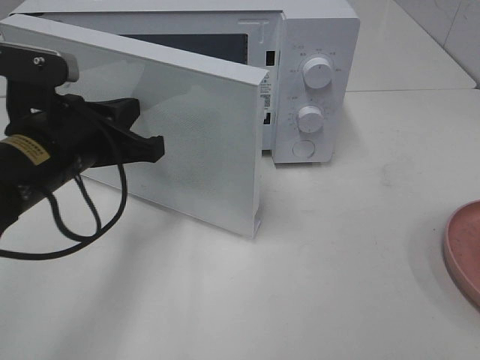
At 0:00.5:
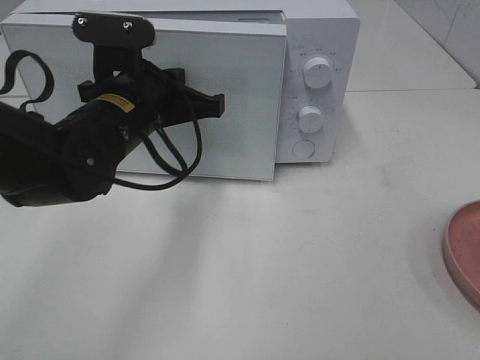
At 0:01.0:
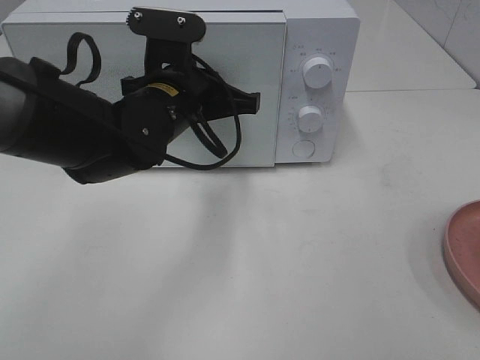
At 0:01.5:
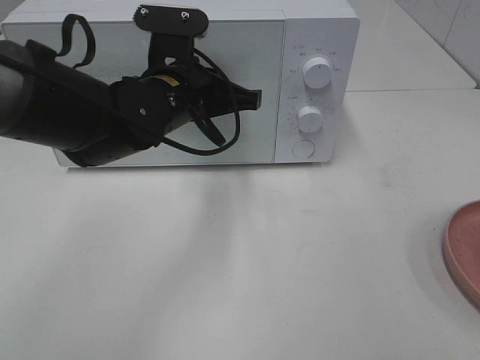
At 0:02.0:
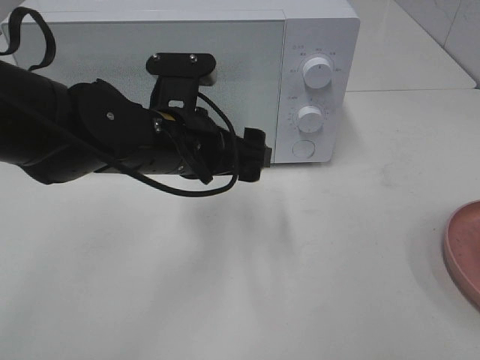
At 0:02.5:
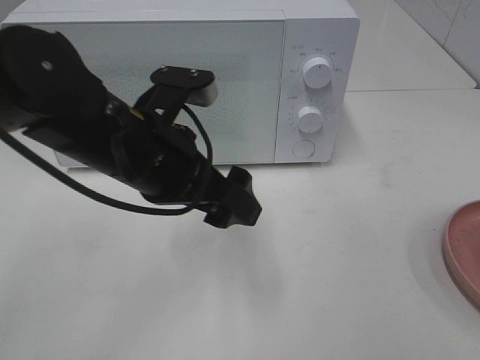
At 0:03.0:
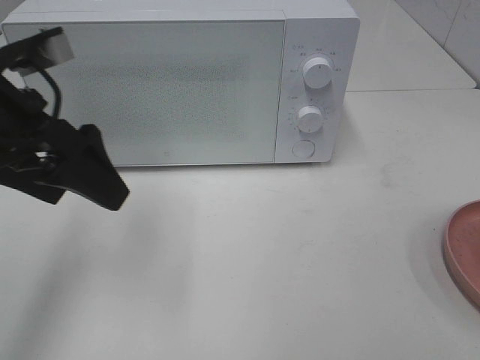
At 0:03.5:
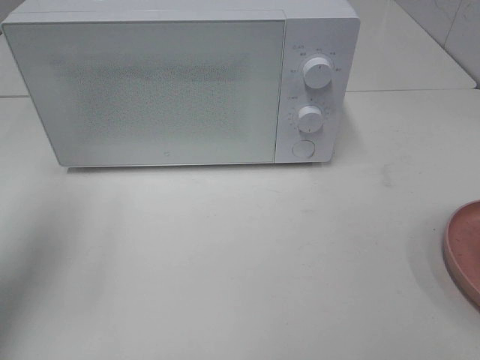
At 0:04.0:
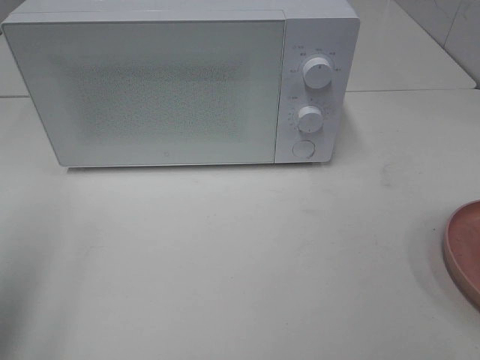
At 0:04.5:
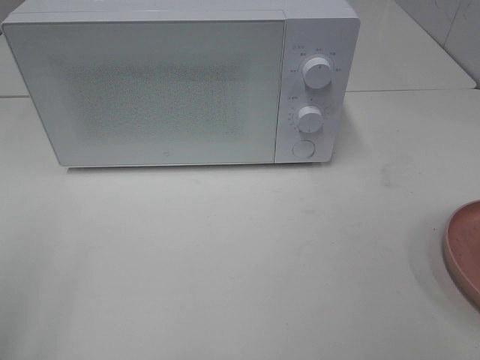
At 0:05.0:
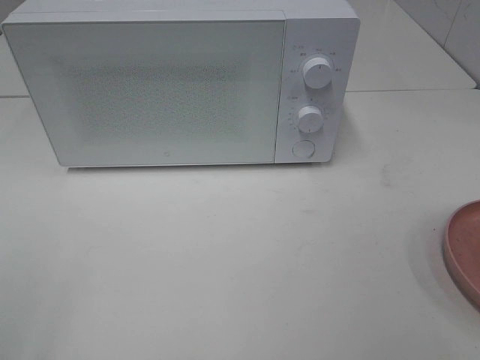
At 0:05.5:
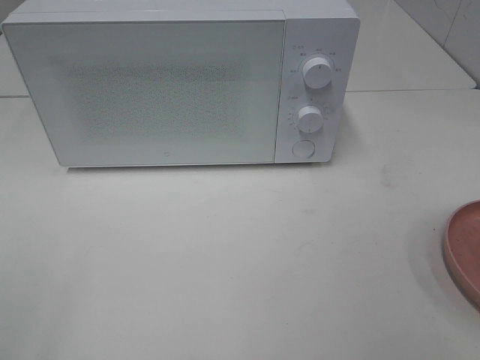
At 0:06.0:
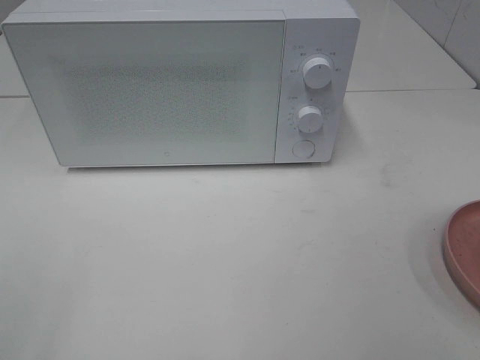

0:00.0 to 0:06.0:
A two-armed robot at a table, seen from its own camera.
Task of the whole recording: Heat the burger.
0:00.0 to 0:02.0: The left gripper goes roughly 10 cm to the right, and opens.
0:02.0 to 0:04.0: The left gripper goes approximately 30 cm to the left, backward and upward.
0:04.0 to 0:06.0: The left gripper shifts approximately 15 cm backward.

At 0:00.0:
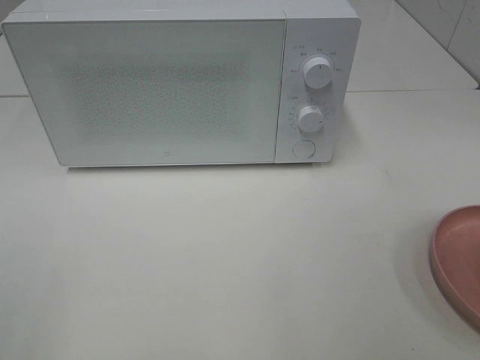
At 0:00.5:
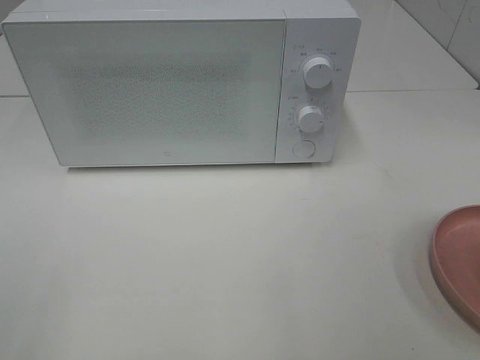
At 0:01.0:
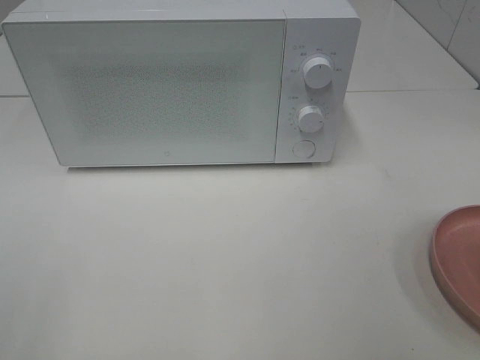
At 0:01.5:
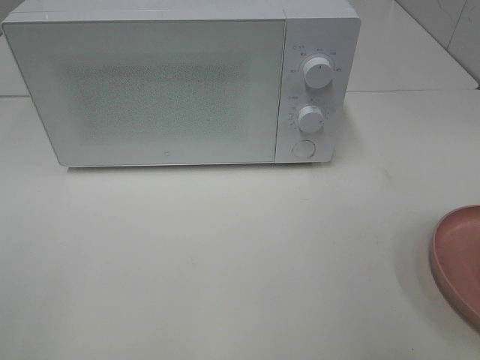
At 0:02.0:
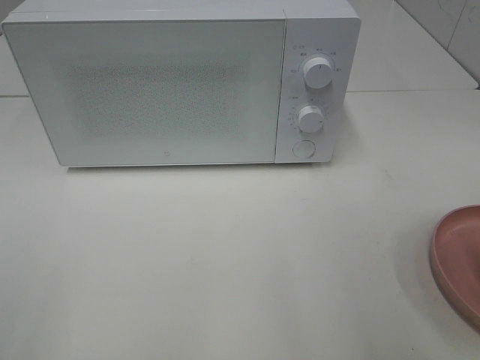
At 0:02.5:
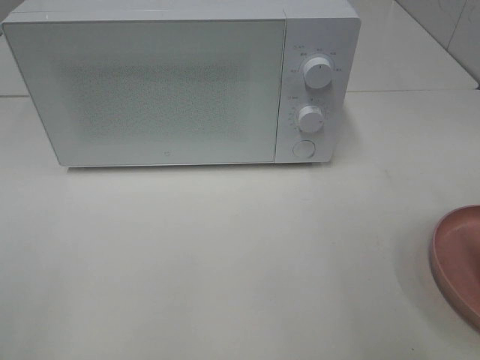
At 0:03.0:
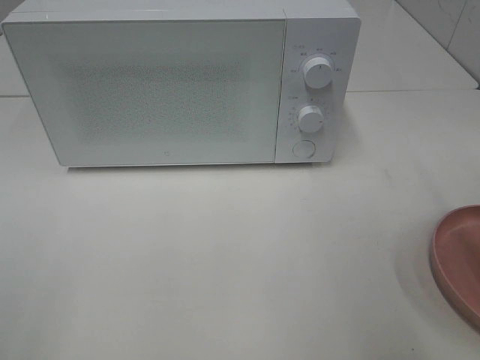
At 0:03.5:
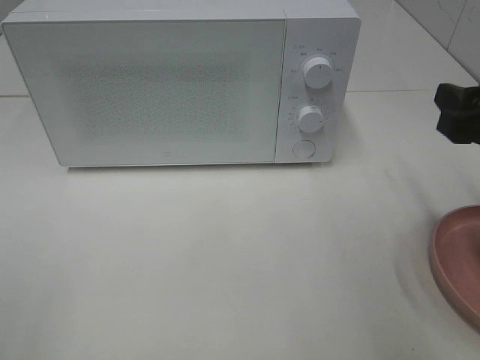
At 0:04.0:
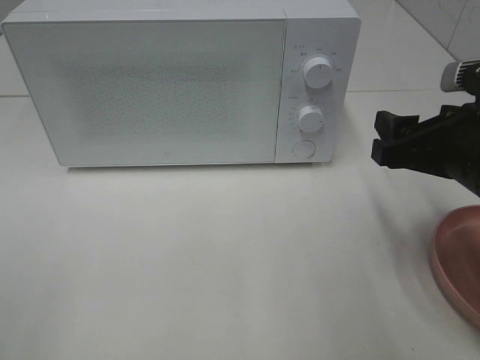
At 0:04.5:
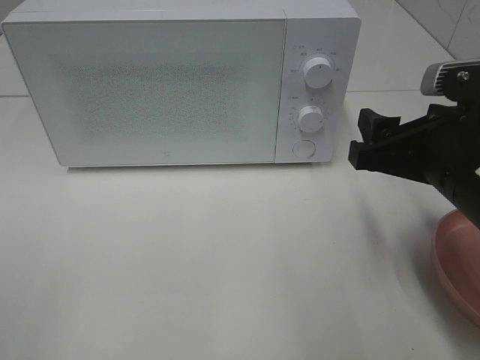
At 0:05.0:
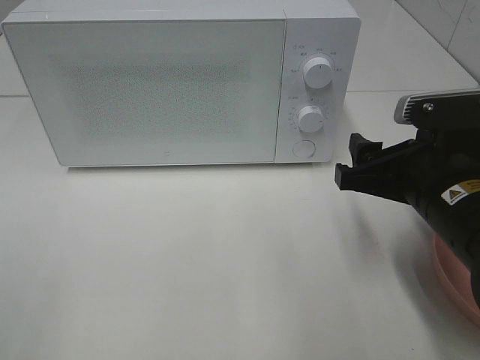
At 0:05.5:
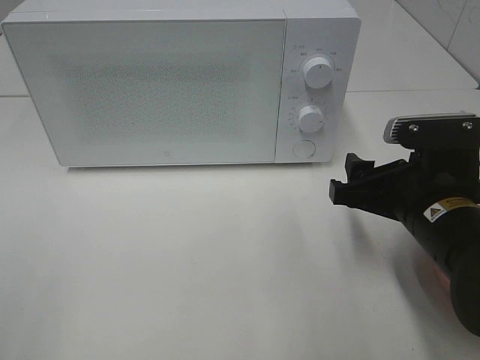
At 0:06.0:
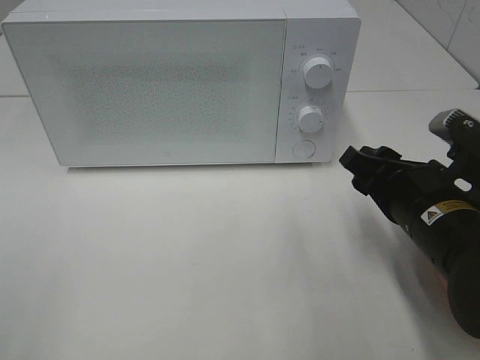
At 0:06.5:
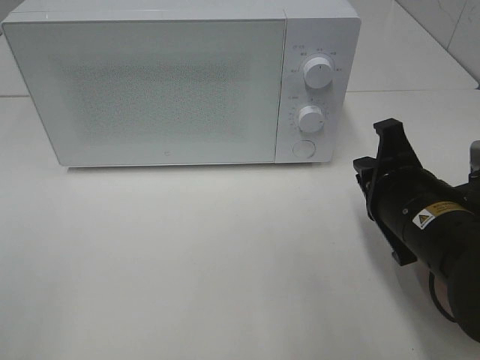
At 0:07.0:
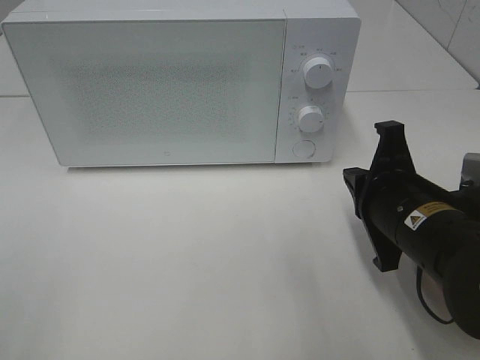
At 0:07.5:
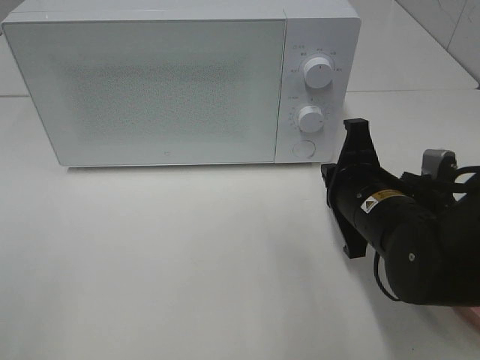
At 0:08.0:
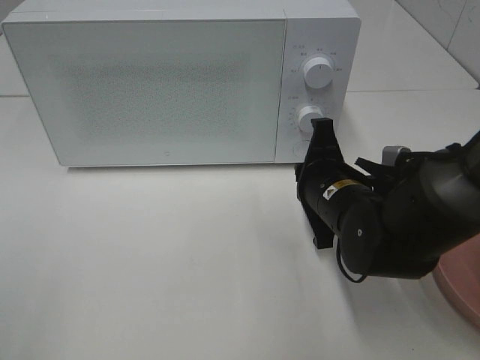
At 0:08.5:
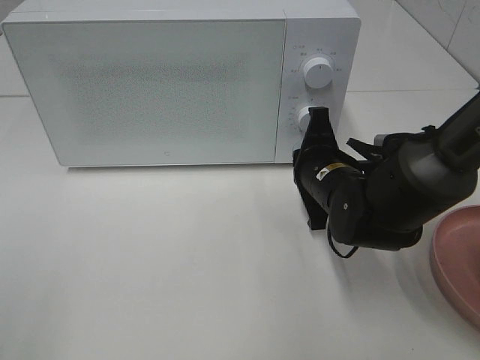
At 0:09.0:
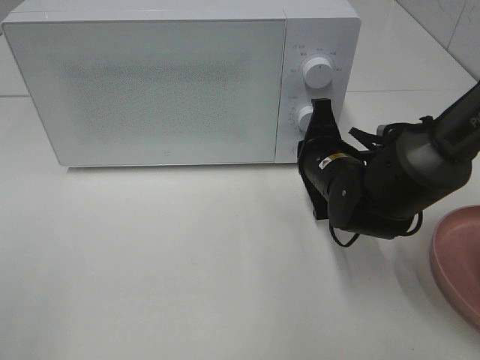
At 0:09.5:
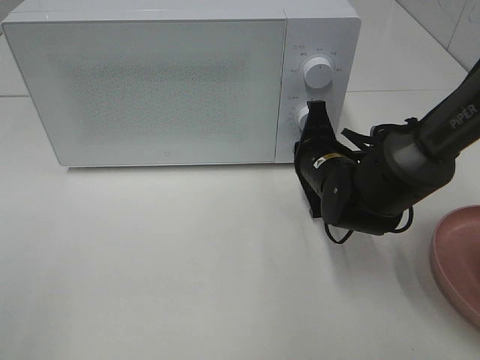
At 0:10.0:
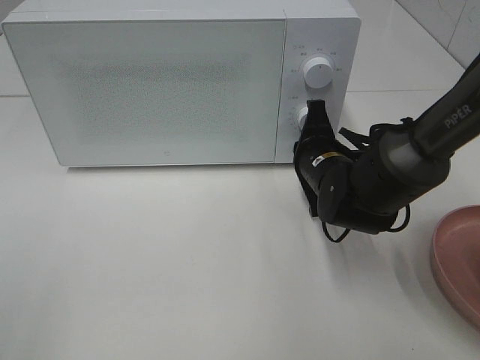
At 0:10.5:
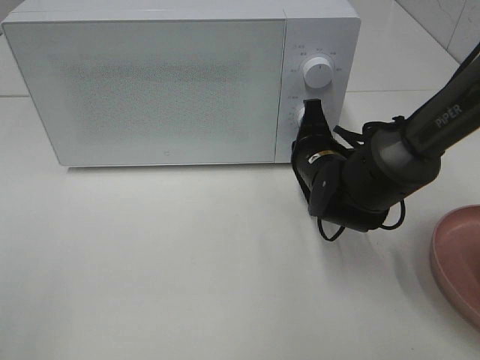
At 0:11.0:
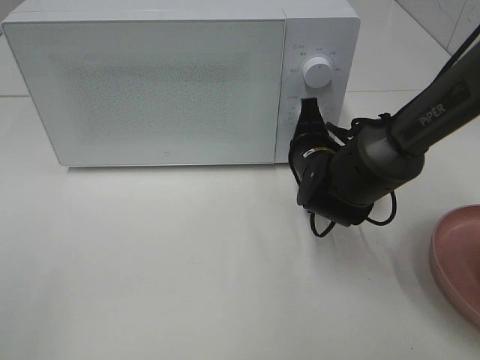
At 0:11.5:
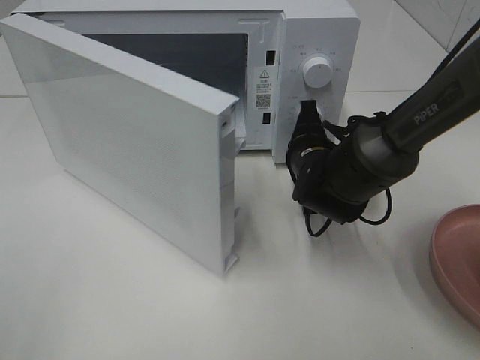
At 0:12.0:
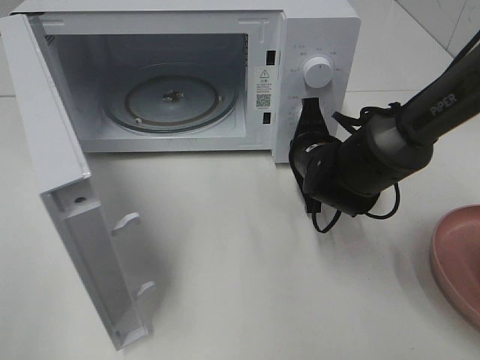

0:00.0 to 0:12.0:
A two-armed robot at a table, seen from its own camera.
Task of the whole recording: Heat the burger.
0:02.0 to 0:04.0: The right gripper goes roughly 15 cm forward, downward and to the left.
0:04.0 to 0:06.0: The right gripper travels downward by some 5 cm.
0:06.0 to 0:08.0: The right gripper is displaced to the left and forward by some 10 cm, and closes its fingers.
0:08.0 to 0:10.0: The right gripper heads forward, covering roughly 5 cm.

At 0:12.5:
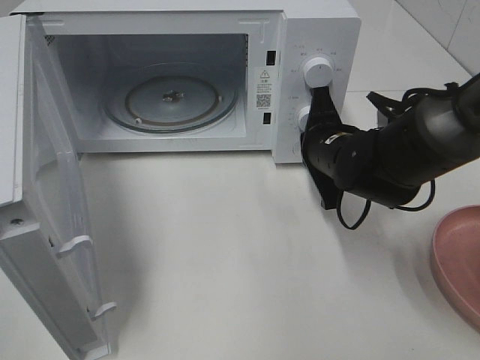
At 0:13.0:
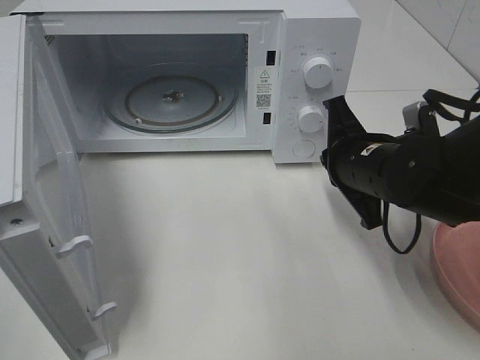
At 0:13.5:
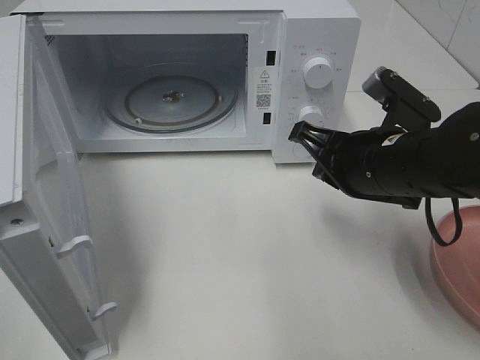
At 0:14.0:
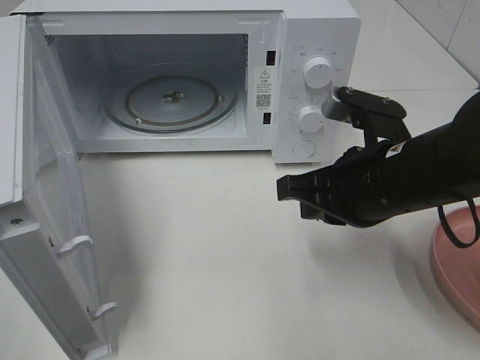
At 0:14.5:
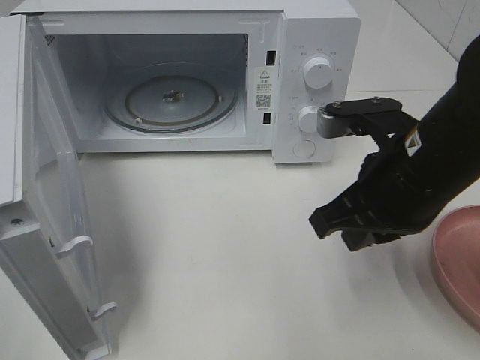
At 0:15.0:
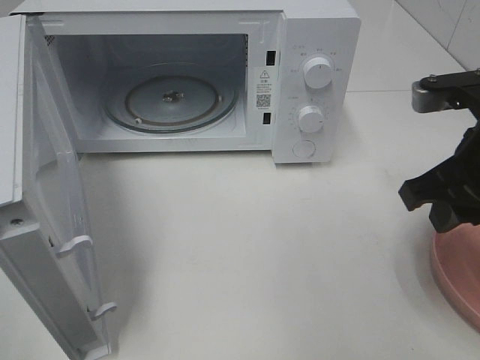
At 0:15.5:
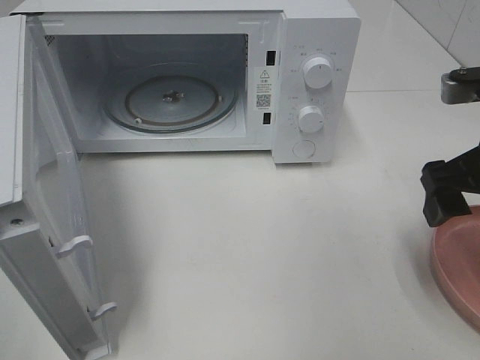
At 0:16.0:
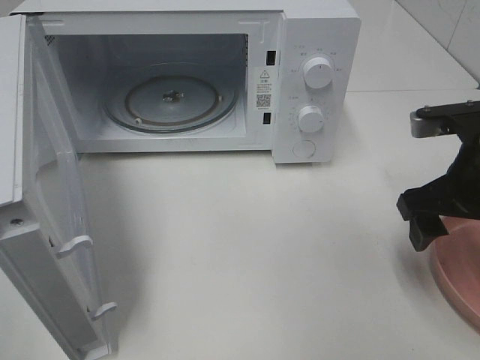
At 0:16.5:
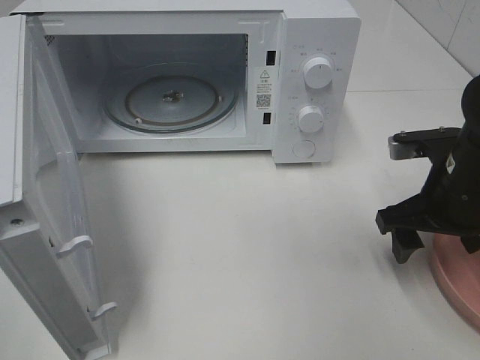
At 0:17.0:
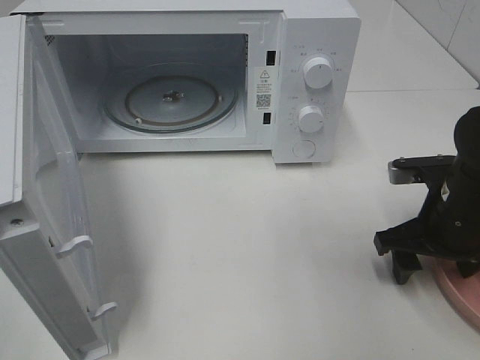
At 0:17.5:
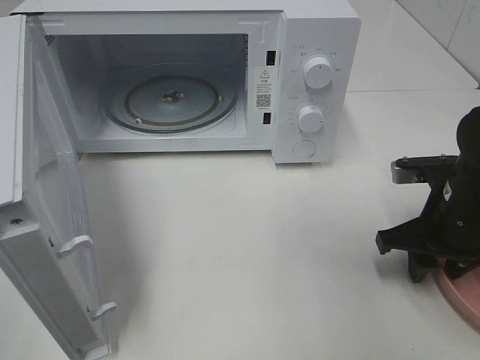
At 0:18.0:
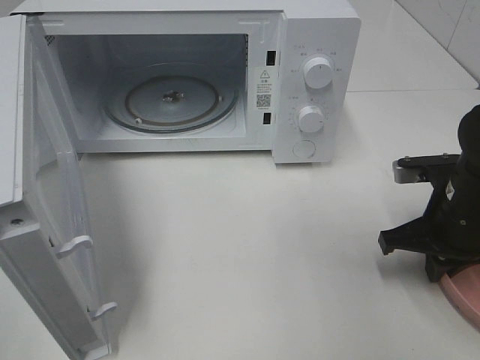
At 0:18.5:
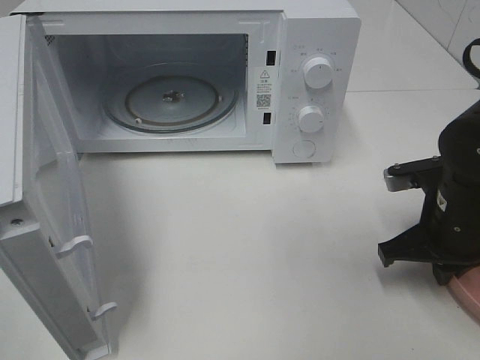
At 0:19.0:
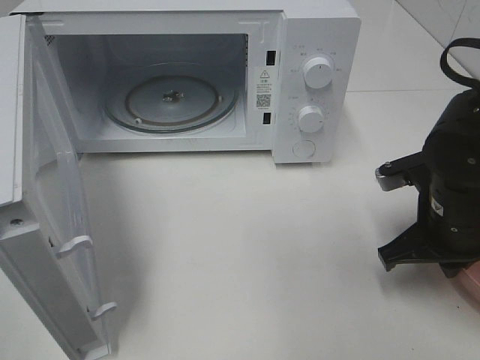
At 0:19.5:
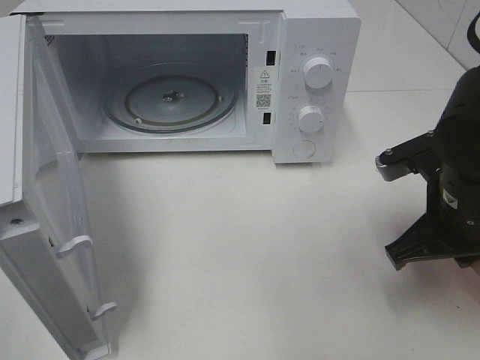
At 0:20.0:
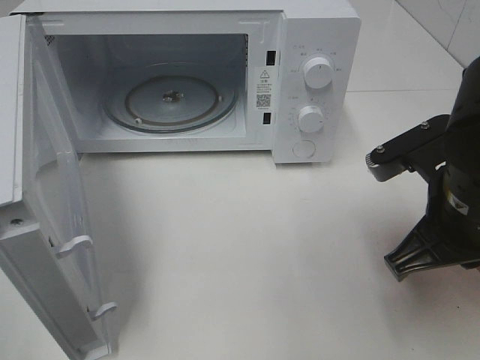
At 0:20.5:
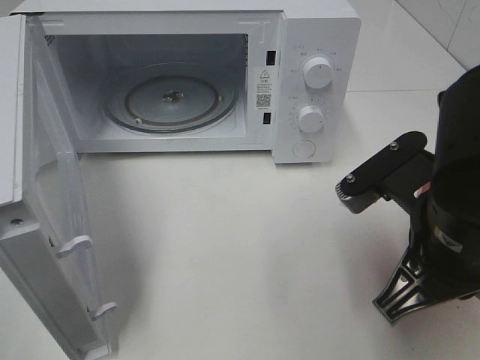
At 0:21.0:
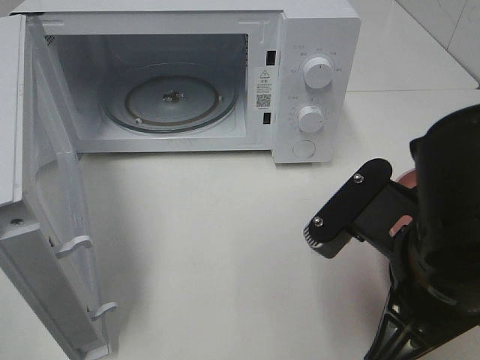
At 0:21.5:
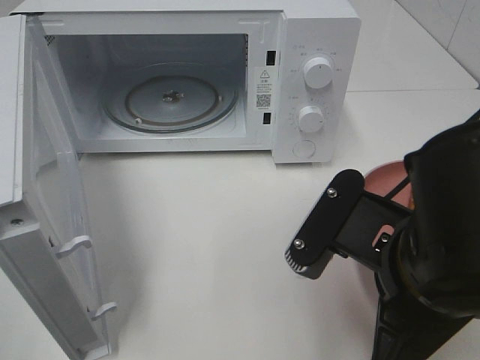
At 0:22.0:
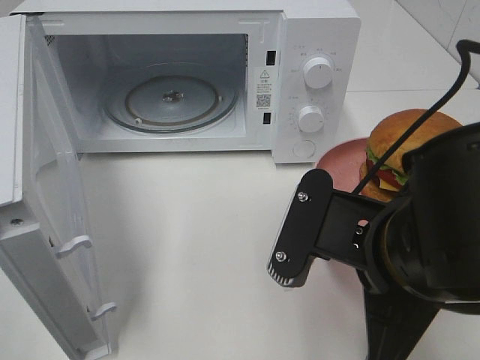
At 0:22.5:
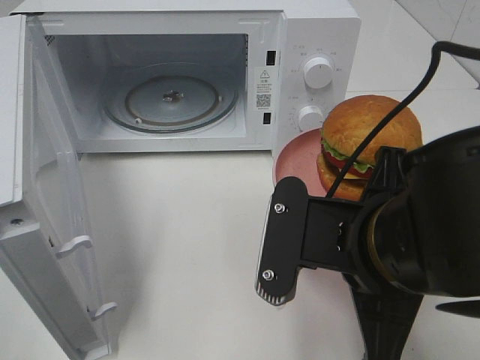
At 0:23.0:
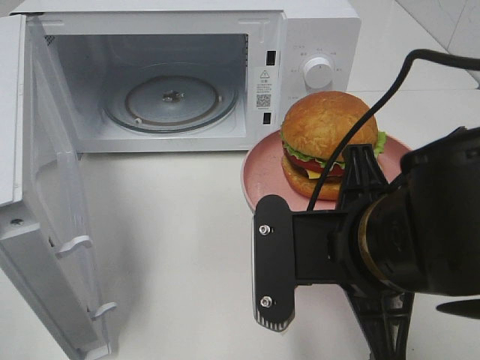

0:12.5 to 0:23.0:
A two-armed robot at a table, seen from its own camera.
Task of the whole recording: Heat the burger.
Step, 0:13.0 to 0:18.0: Right hand: grab the plate with the hamburger.
0:12.5 to 0:14.5: The right gripper goes about 15 cm backward and upward.
0:14.5 to 0:16.5: The right gripper heads to the right and downward, covering some 10 cm, and opens its fingers.
0:16.5 to 0:19.0: The right gripper closes.
0:19.0 to 0:21.0: The right gripper moves backward, to the left and upward, roughly 15 cm.
